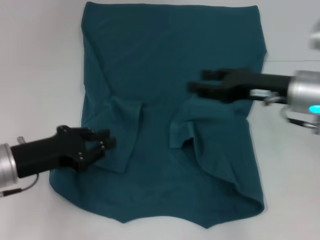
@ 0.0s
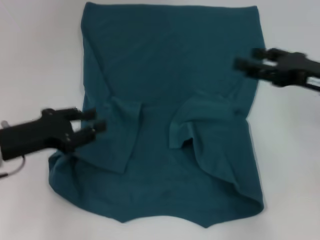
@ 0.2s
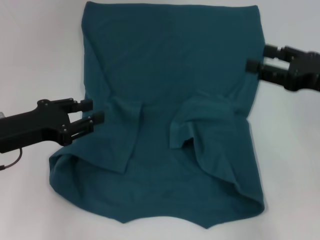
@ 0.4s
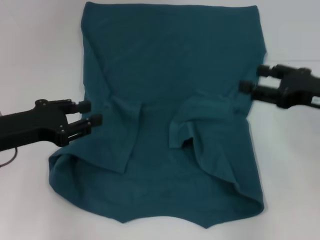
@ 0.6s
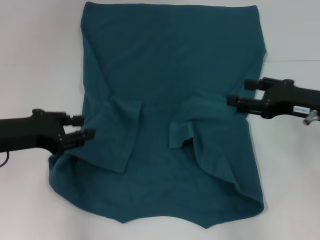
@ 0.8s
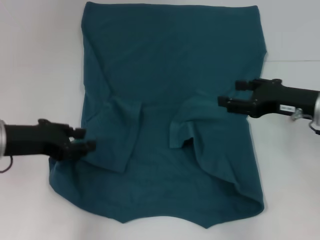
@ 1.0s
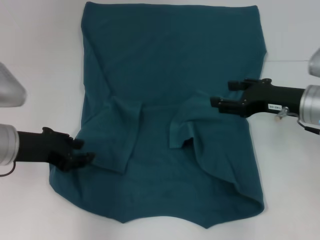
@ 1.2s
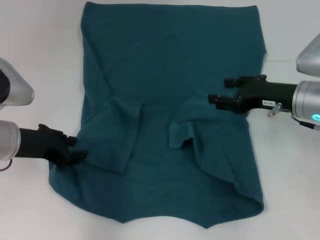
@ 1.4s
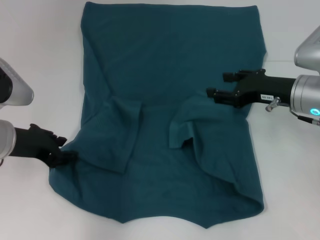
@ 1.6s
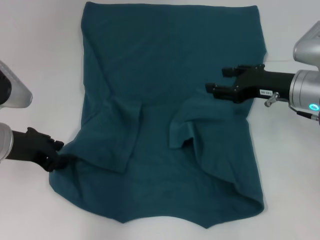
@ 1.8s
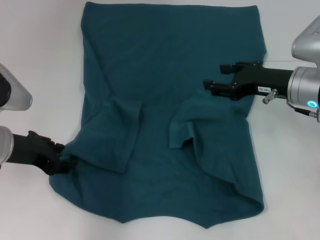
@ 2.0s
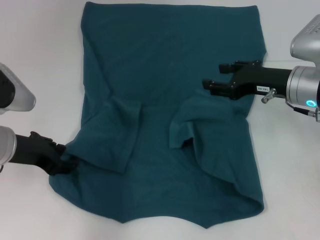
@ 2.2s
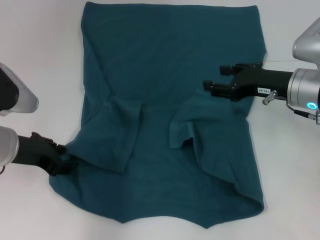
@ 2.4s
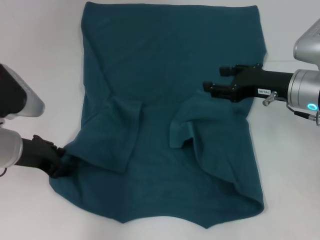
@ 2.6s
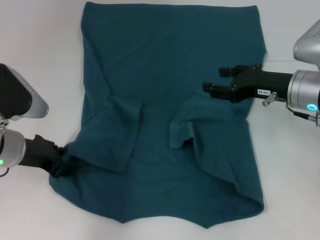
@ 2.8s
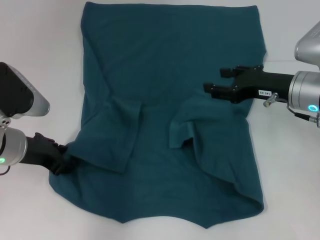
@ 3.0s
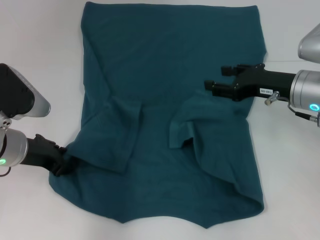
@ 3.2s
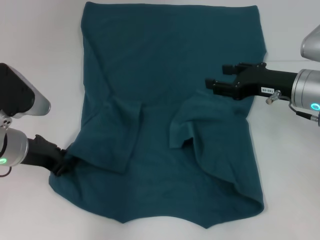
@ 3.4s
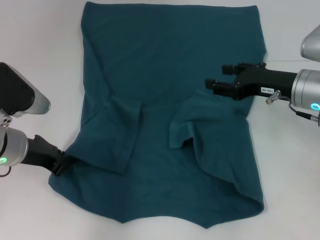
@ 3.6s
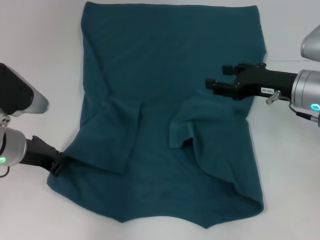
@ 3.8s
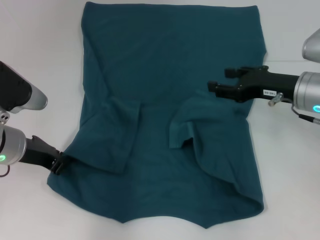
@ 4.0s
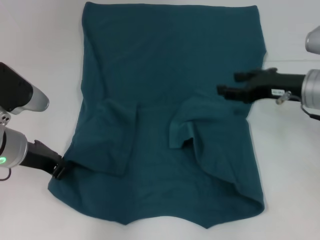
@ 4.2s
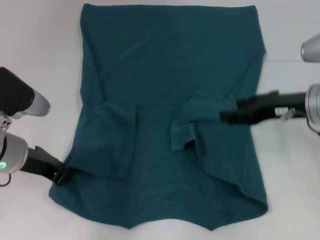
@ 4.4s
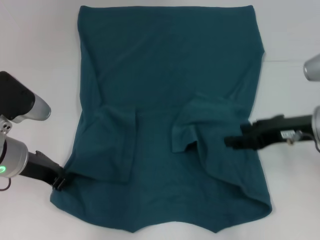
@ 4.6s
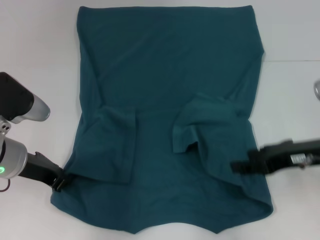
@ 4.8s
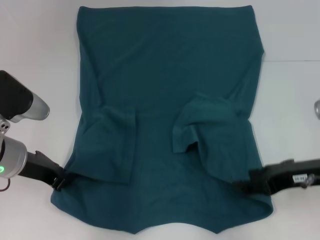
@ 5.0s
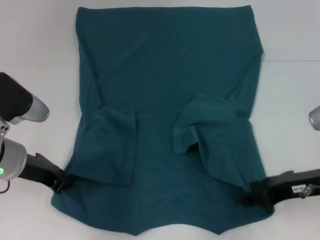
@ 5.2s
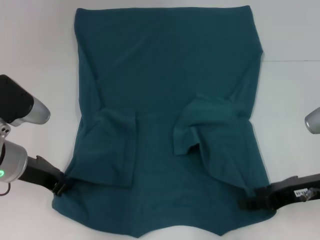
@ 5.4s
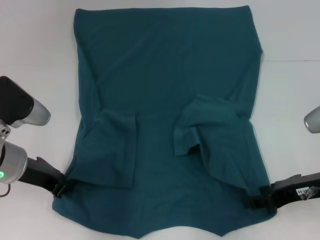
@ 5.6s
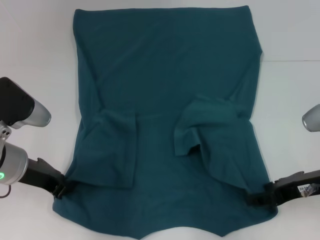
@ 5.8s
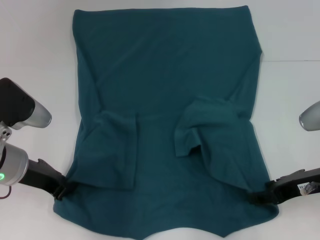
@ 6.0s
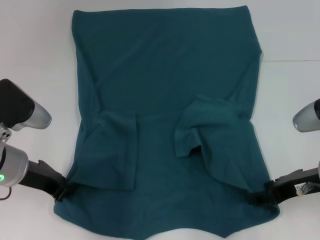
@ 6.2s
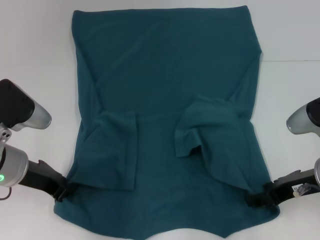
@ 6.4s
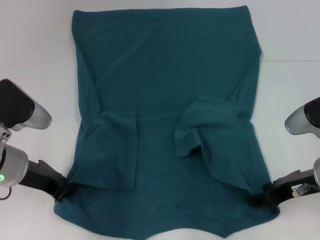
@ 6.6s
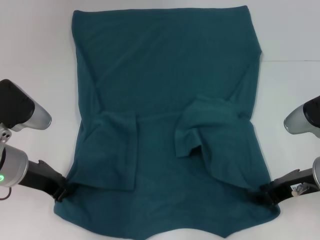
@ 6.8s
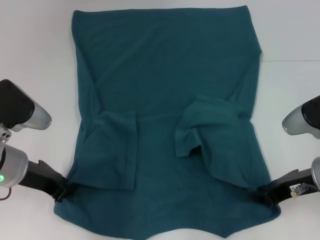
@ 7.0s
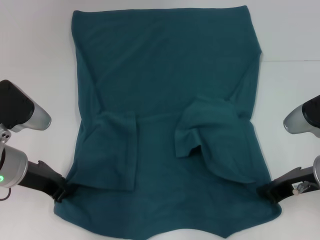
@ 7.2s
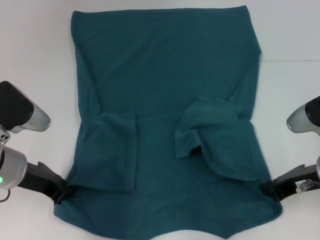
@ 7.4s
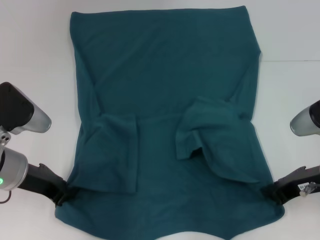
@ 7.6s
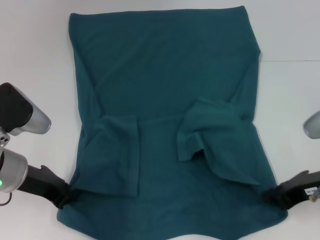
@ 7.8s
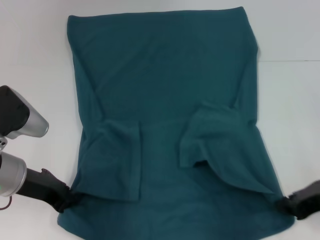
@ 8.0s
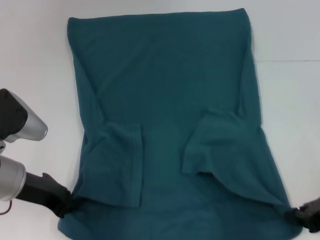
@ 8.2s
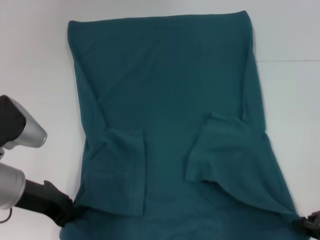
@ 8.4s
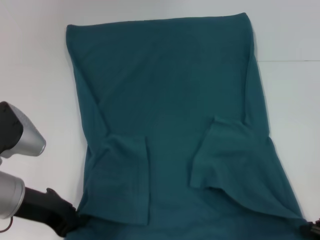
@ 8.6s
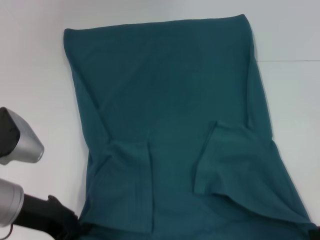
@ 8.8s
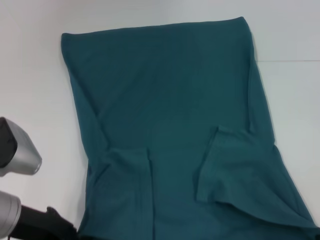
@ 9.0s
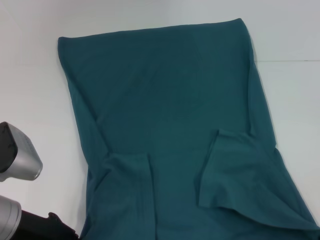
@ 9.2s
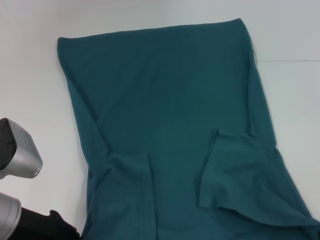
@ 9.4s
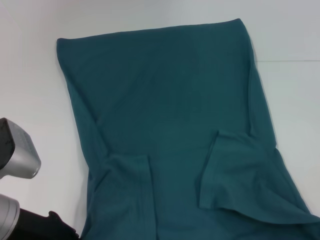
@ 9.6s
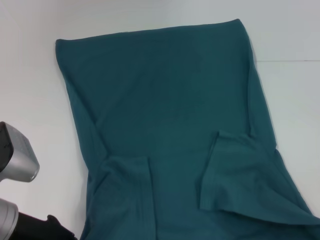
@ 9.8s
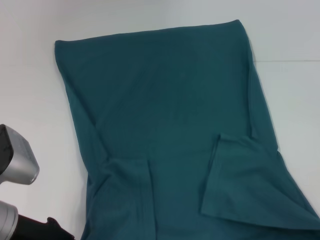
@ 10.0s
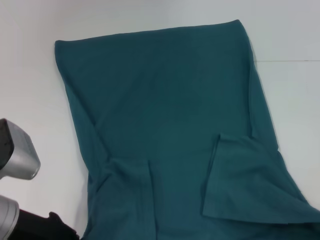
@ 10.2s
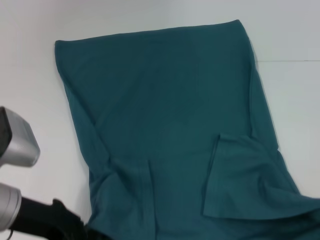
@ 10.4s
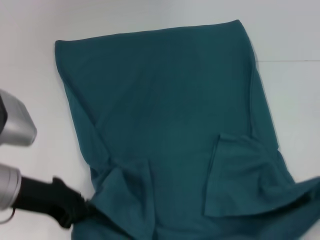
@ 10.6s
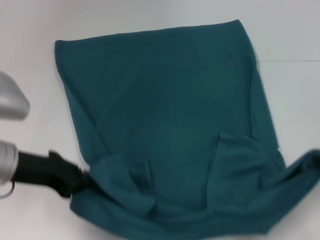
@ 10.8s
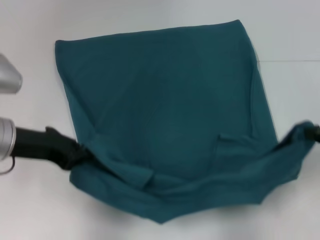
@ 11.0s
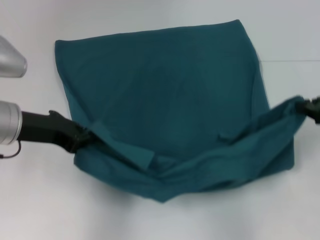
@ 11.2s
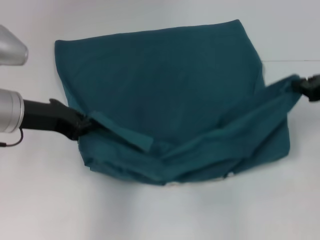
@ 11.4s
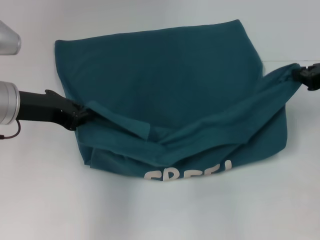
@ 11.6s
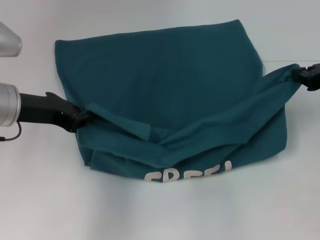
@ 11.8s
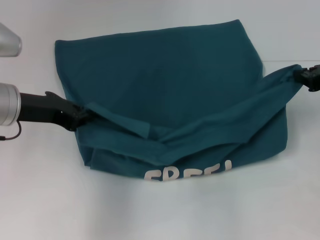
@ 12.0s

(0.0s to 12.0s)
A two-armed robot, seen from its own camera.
Step, 0.0s - 4.2s: Grab the bottom left corner with your left hand.
Step, 4.4s - 8.0s: Grab the bottom right corner with your right hand.
0.0s - 1.6s: The right gripper travels to the right and back again, roughly 10 cm each way. Meanwhile the left gripper ends up some 5 cm from where it was.
1.6s - 3.0s: The grippers move only a little.
3.0s - 4.4s: The left gripper closes.
4.4s - 6.0s: The right gripper heads backward, covering about 10 cm.
6.0s - 7.6s: The right gripper closes its fingers.
7.6s - 9.0s: The right gripper is displaced to the right and backward by approximately 15 cm, while the left gripper is displaced backward by some 5 cm.
9.0s - 10.4s: The grippers move only a little.
10.4s - 12.0s: The left gripper travels forward by about 10 cm. The right gripper moves forward, some 20 cm.

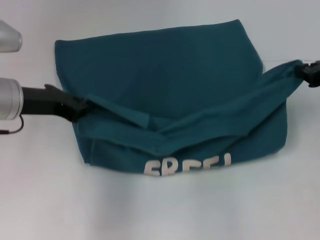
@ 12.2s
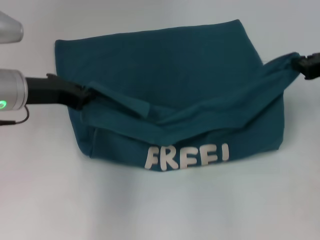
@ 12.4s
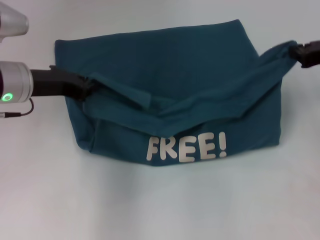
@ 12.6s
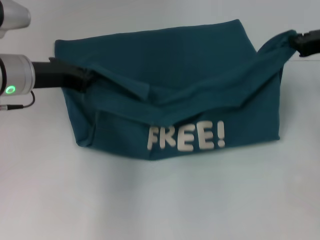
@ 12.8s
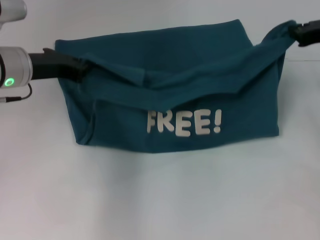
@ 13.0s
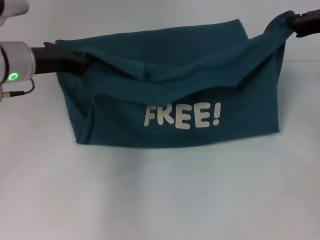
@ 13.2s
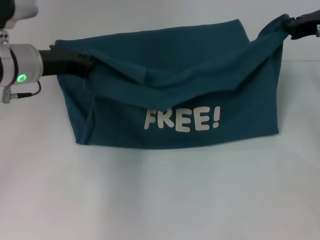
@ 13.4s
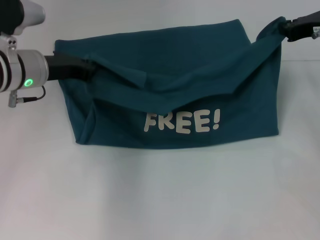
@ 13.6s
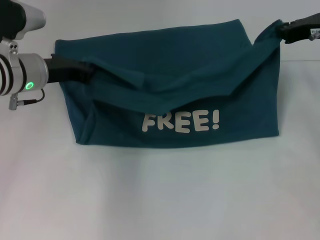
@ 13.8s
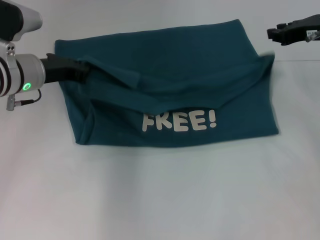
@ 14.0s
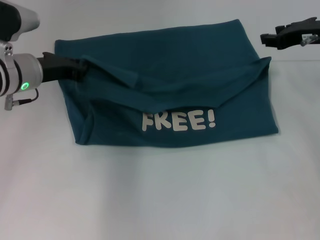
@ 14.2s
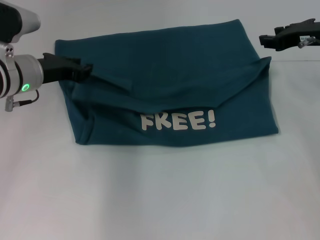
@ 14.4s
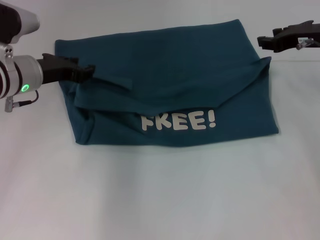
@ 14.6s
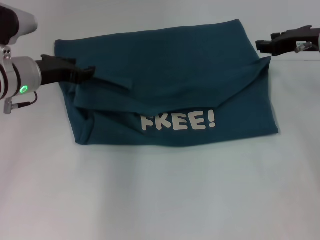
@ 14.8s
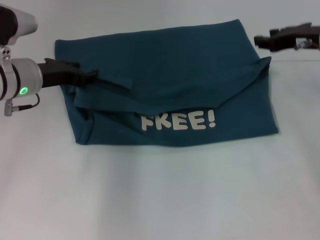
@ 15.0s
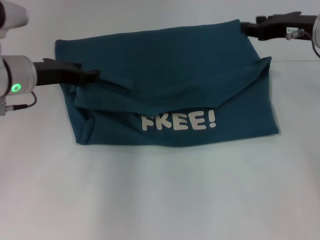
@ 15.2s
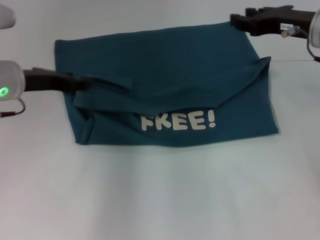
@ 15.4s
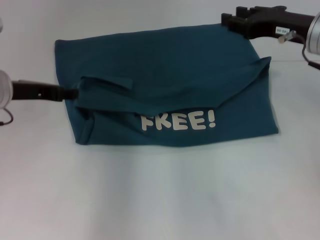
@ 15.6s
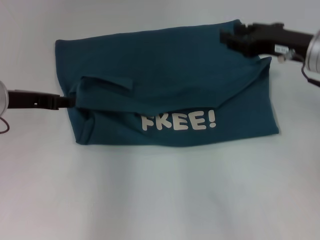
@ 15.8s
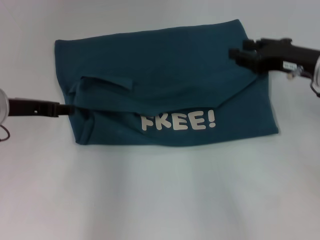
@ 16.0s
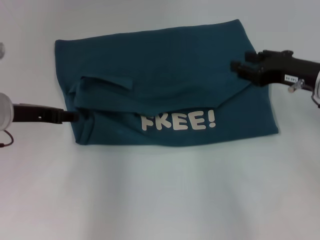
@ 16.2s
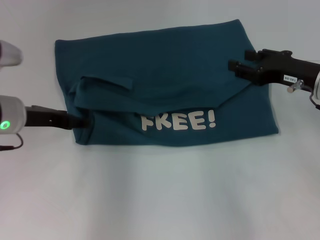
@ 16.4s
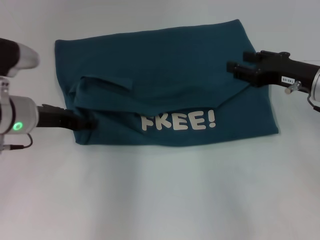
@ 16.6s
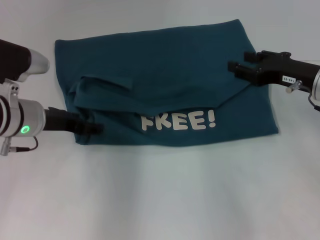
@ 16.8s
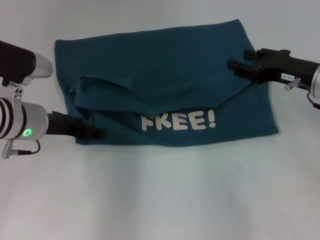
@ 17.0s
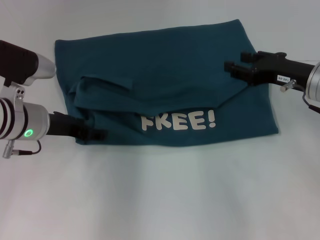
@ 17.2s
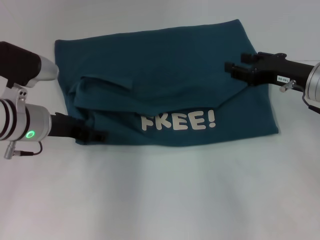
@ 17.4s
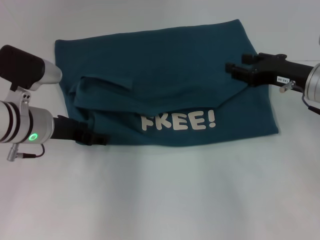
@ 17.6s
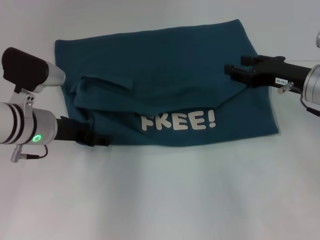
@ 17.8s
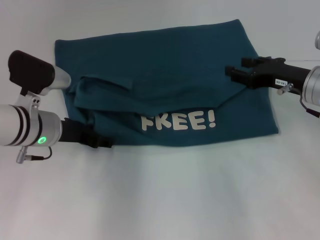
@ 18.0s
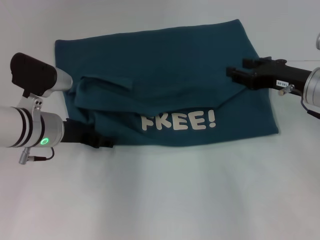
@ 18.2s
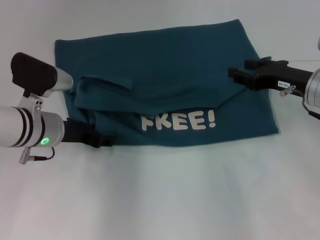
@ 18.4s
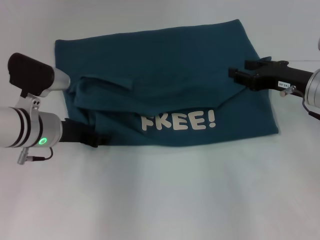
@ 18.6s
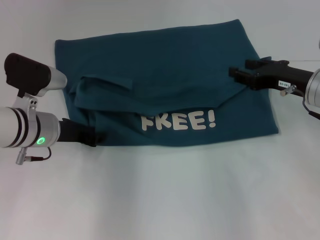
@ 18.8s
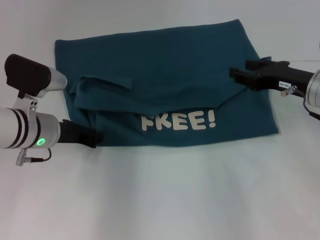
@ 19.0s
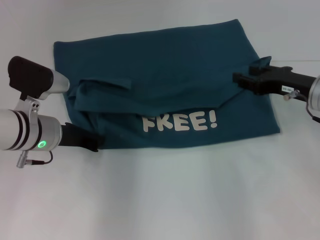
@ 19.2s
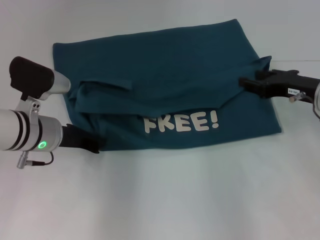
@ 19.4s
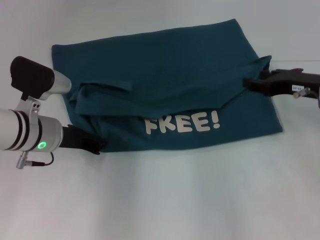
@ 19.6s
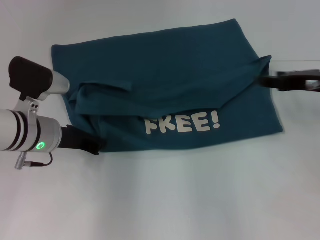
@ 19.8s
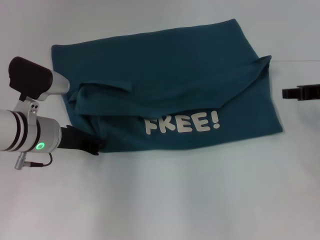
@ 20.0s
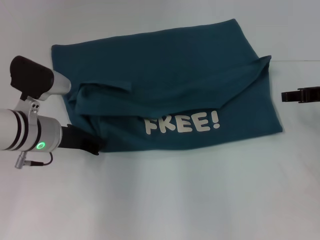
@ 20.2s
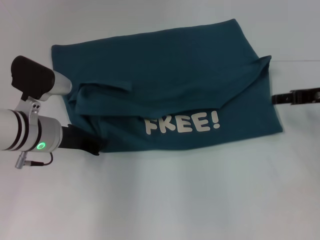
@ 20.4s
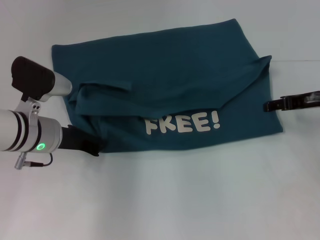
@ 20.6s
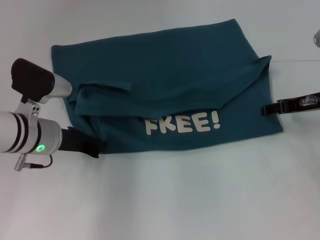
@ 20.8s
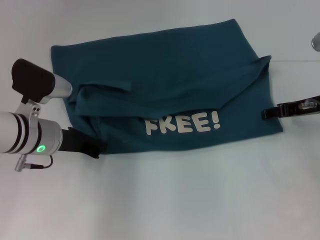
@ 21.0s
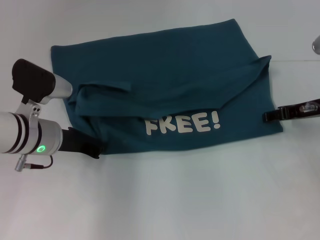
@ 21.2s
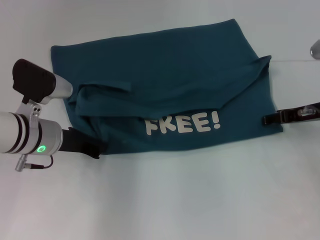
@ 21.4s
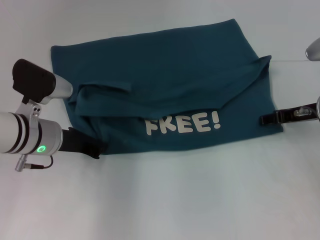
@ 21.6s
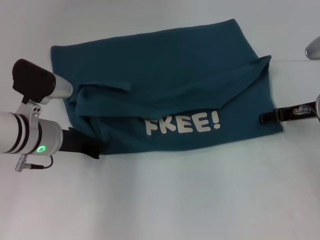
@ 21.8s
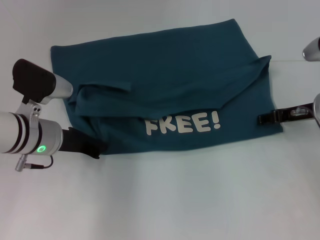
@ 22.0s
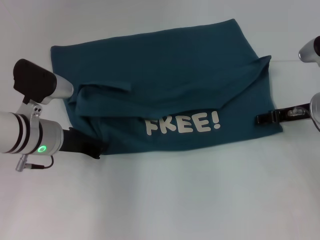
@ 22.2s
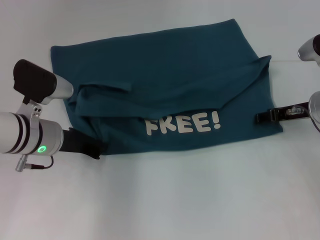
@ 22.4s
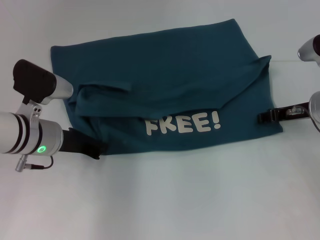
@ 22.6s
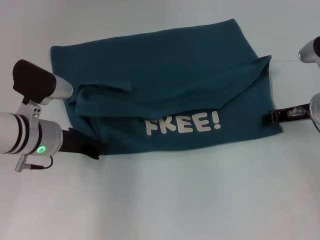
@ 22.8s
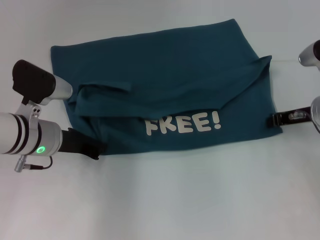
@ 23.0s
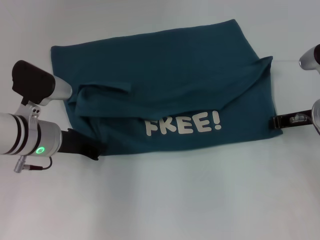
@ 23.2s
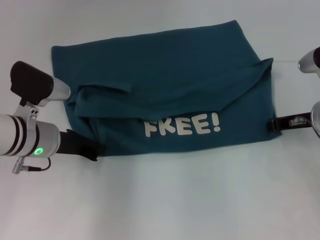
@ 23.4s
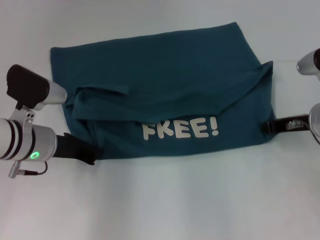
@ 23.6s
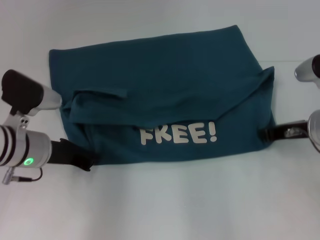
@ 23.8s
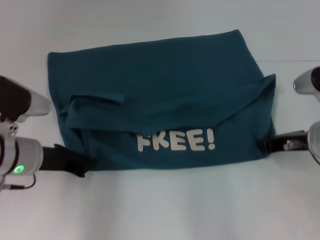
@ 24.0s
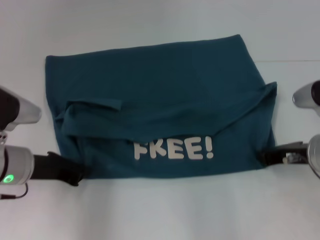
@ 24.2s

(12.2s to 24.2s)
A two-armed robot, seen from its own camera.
Step, 12.2s - 15.2s: Fold the clothes to the left.
Step, 12.2s - 15.2s: Fold the clothes to the right.
12.2s - 13.8s: The two grippers go some 5 cm forward.
13.8s - 15.2s: The right gripper opens; the left gripper opens.
15.2s - 16.6s: The right gripper shifts some 5 cm downward.
16.6s - 18.2s: The grippers make only small movements.
18.2s - 19.8s: The left gripper closes.
21.2s - 22.6s: The grippers move only a little.
22.6s - 24.2s: The left gripper shifts by roughly 5 cm. Meanwhile the right gripper goes about 10 cm backward, and closes its fingers.
